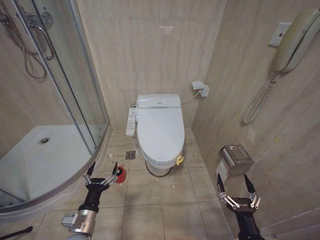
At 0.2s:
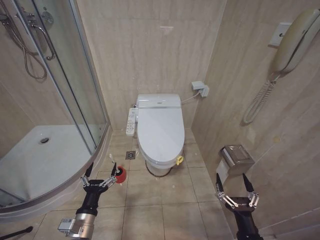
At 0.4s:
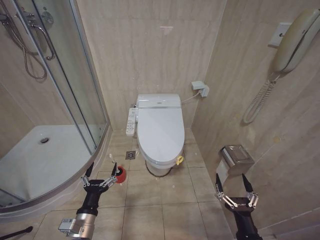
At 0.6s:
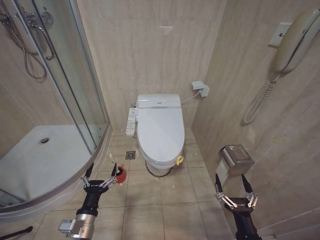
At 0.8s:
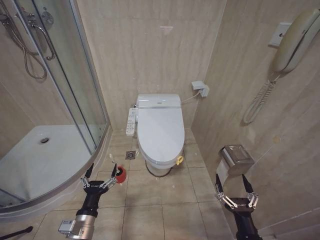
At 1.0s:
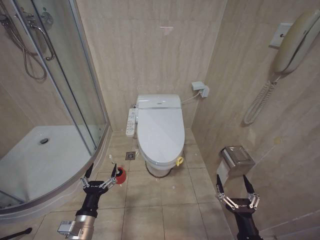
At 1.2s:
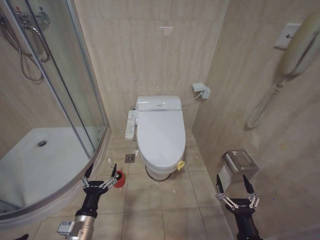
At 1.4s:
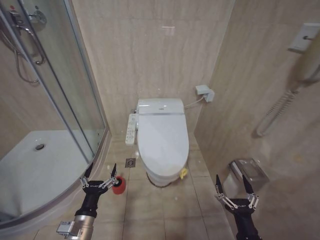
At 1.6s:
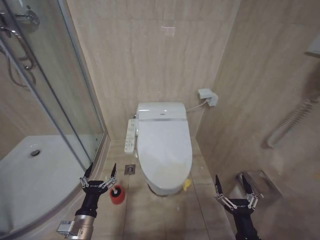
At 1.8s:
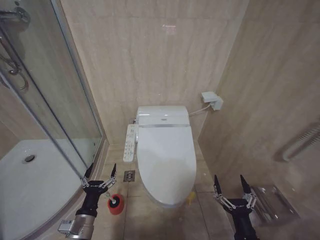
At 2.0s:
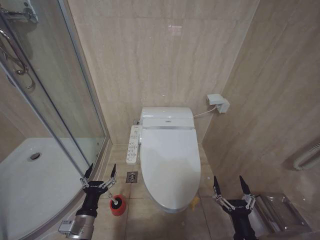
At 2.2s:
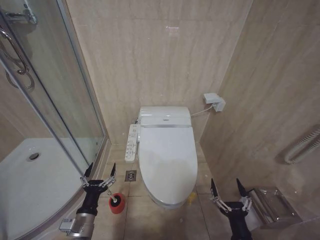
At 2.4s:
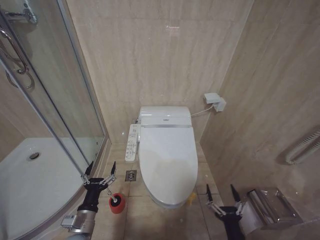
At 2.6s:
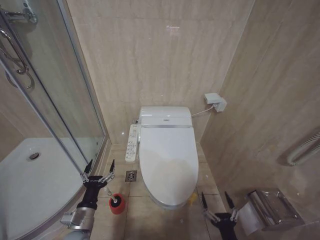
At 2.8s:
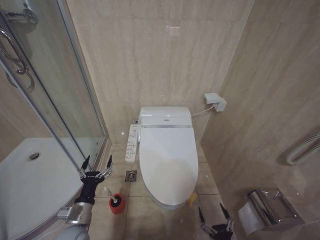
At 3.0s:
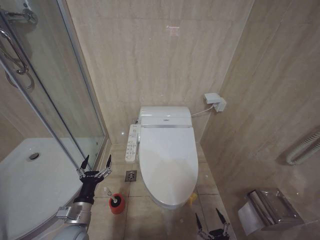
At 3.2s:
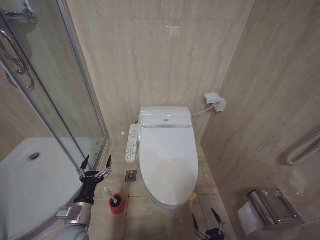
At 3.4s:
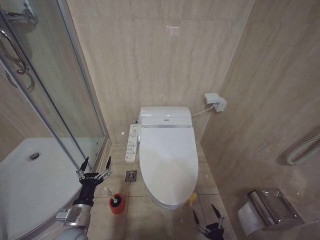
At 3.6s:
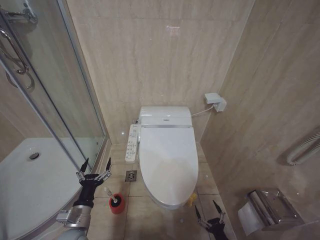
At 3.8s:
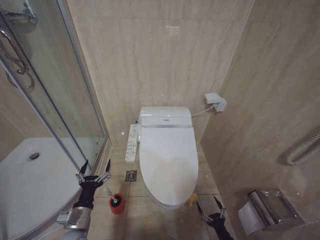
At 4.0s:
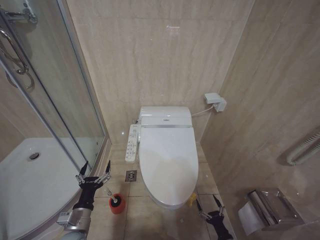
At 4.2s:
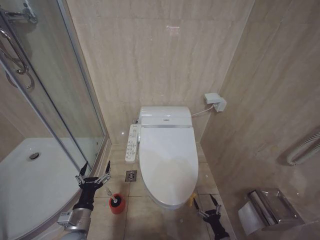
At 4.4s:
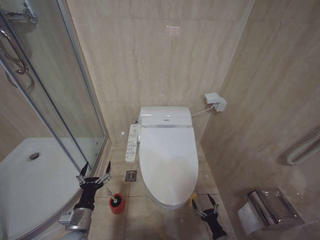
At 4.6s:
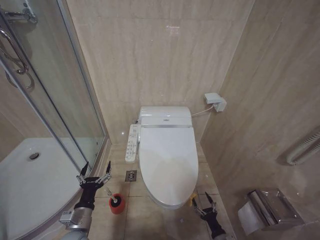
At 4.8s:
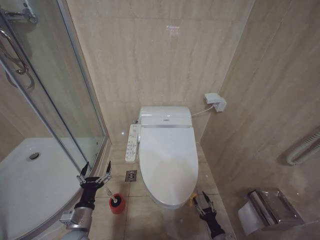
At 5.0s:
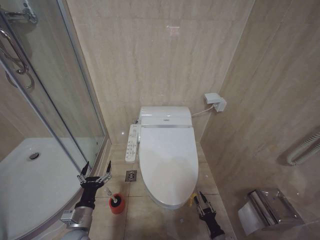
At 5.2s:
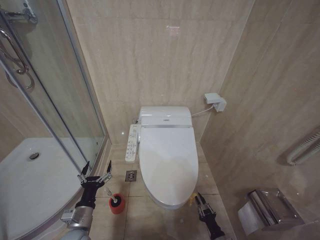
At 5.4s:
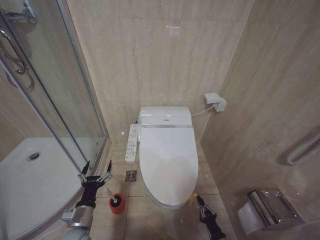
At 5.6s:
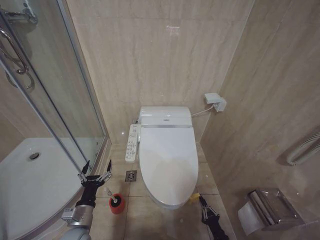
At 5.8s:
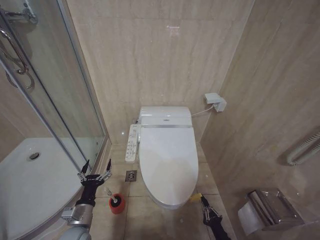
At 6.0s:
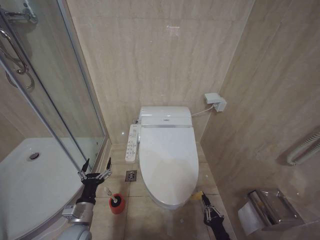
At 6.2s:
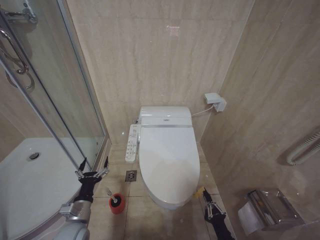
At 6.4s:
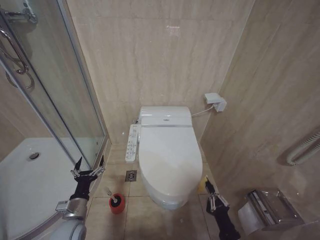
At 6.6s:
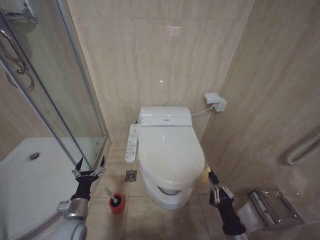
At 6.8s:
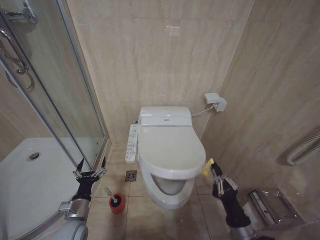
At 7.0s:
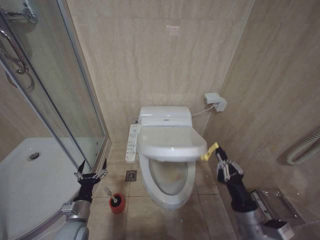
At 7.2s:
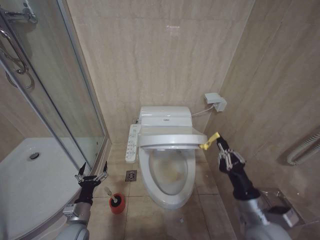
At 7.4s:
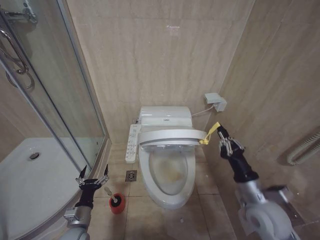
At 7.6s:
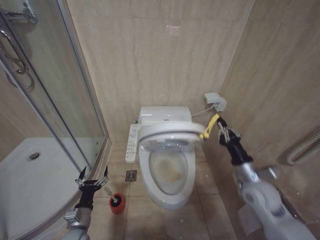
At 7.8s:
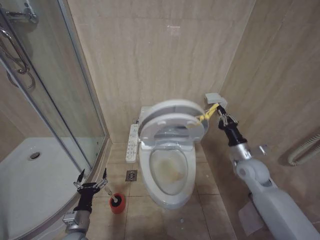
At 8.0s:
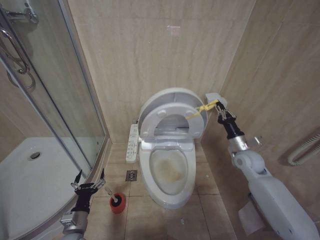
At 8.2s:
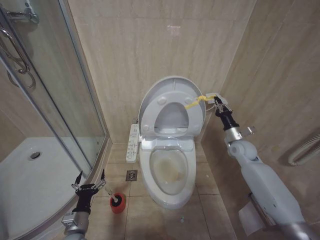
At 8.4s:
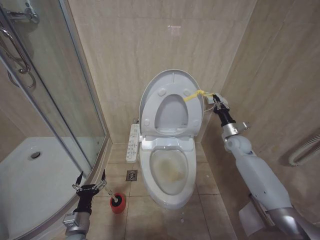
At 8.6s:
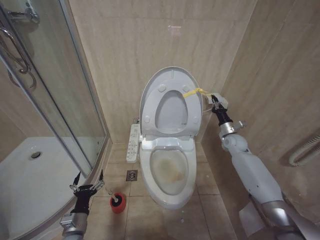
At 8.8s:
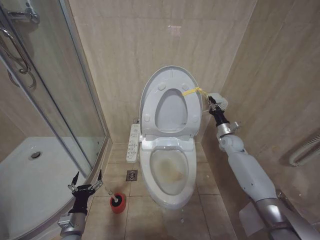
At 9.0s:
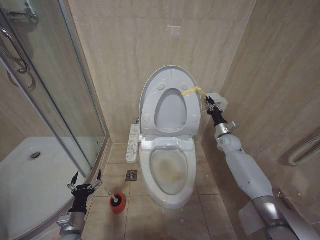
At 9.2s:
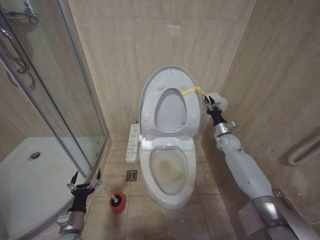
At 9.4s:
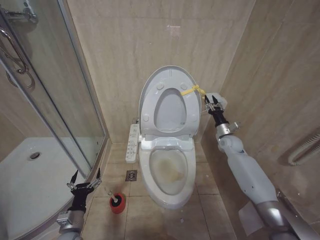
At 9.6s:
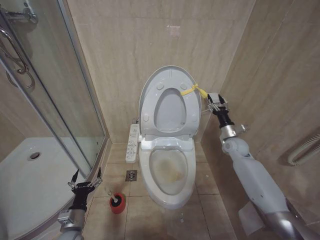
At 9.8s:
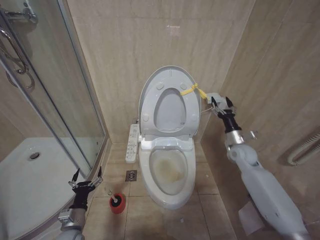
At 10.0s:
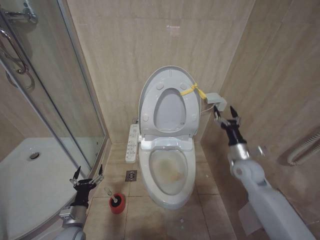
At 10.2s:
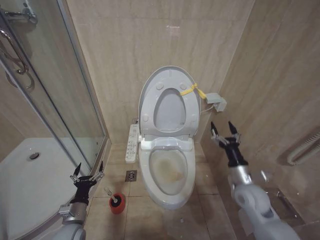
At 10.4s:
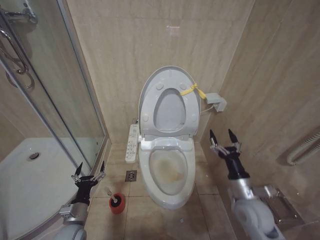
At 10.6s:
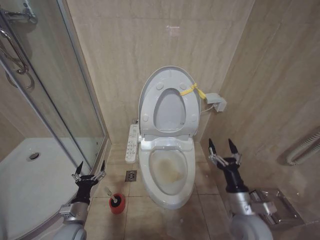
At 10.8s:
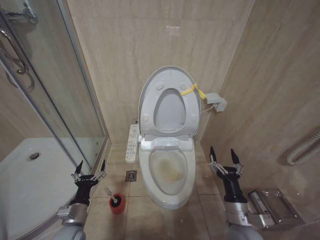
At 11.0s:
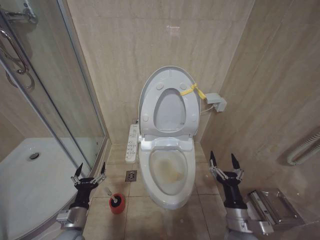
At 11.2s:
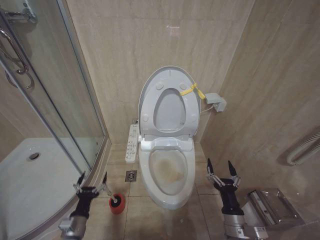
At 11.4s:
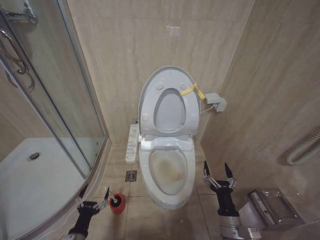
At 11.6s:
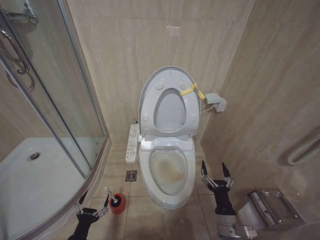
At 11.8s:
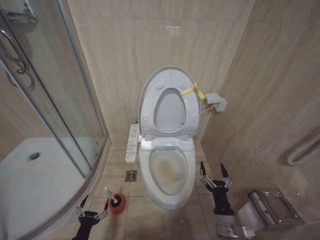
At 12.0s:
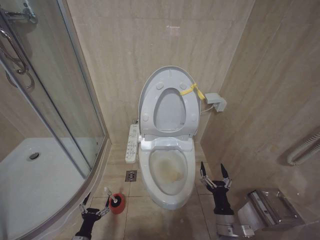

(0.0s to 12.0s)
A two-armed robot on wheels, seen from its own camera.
Task of the whole recording: Open the toilet lid, clean the toilet bowl with a toilet brush, close the toilet lid, and flush.
1.6s - 3.0s: The right gripper travels downward by some 15 cm.
3.0s - 4.4s: The right gripper heads forward and downward, covering some 15 cm.
4.4s - 6.0s: The right gripper heads upward, covering some 5 cm, and closes up.
6.0s - 7.6s: The right gripper goes roughly 30 cm upward and forward.
7.6s - 9.0s: The right gripper shifts approximately 25 cm forward.
9.0s - 10.4s: The right gripper is displaced backward by some 25 cm, and opens up.
10.4s - 12.0s: The left gripper travels downward and backward by roughly 15 cm. The right gripper travels downward, backward and to the left by about 15 cm.

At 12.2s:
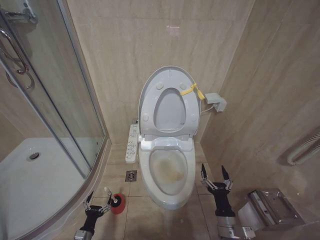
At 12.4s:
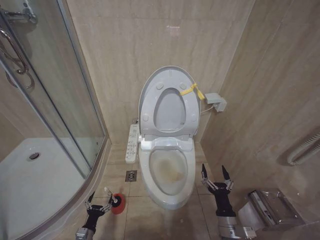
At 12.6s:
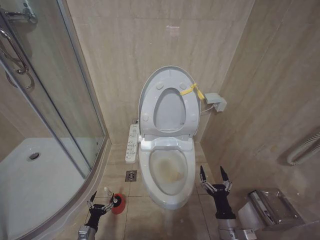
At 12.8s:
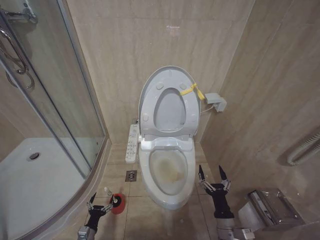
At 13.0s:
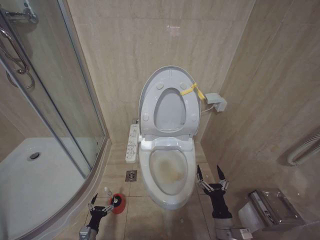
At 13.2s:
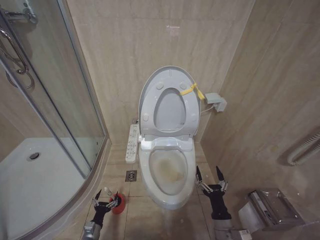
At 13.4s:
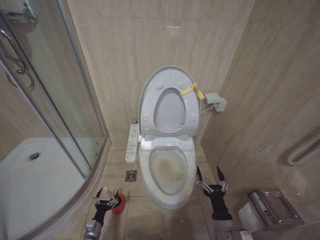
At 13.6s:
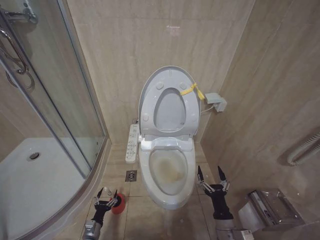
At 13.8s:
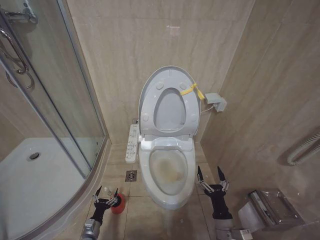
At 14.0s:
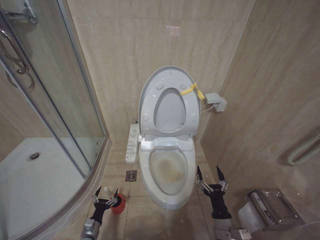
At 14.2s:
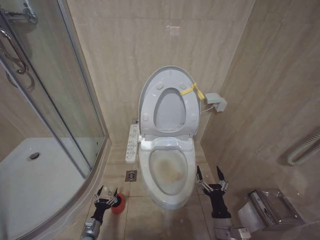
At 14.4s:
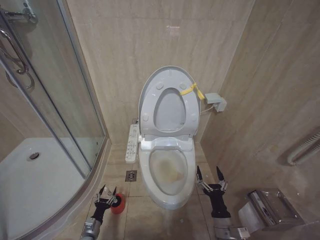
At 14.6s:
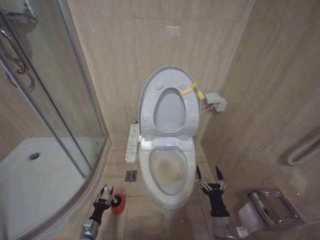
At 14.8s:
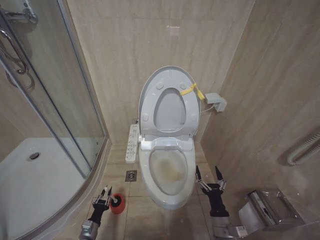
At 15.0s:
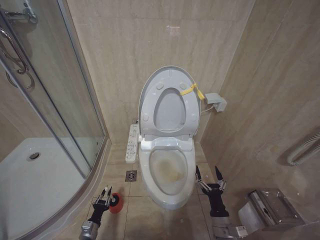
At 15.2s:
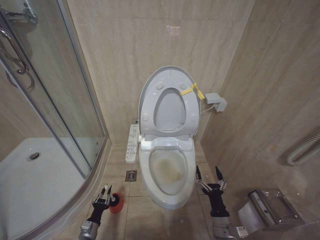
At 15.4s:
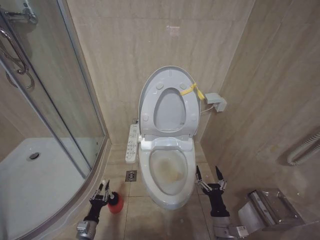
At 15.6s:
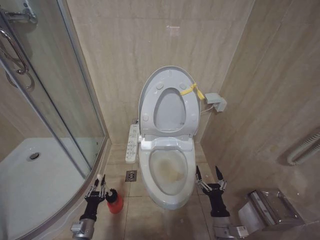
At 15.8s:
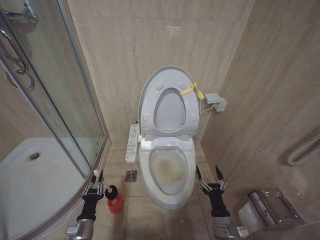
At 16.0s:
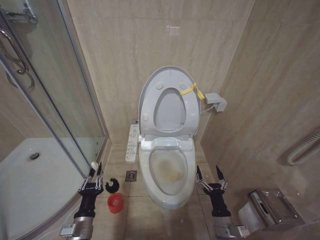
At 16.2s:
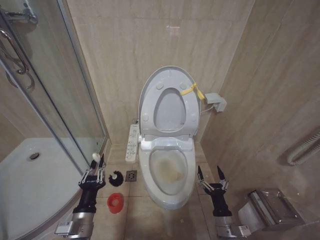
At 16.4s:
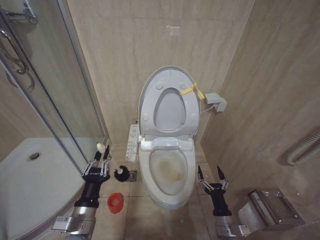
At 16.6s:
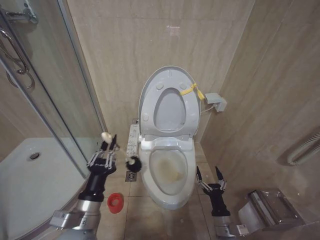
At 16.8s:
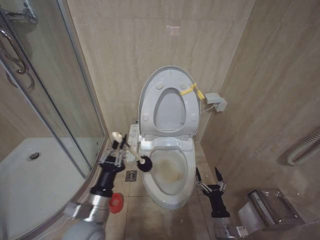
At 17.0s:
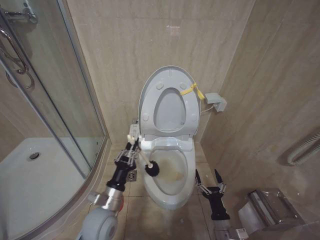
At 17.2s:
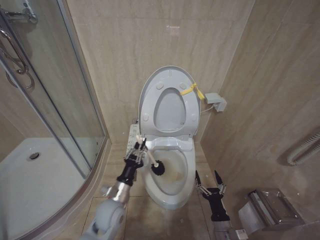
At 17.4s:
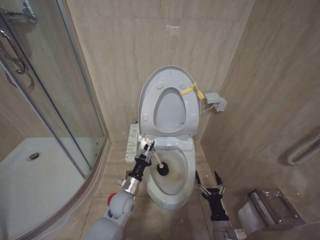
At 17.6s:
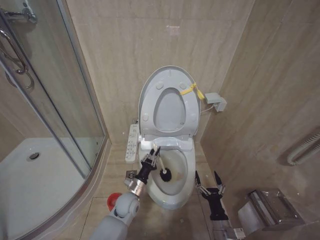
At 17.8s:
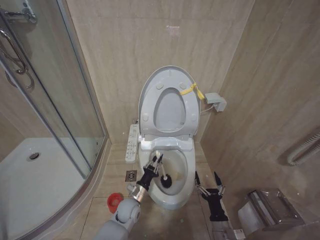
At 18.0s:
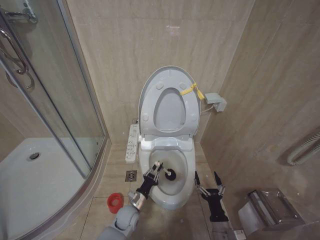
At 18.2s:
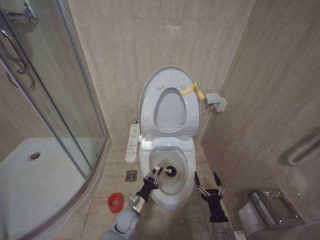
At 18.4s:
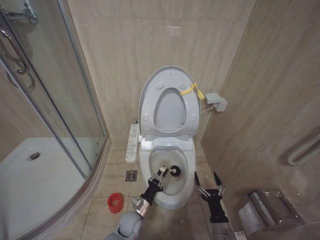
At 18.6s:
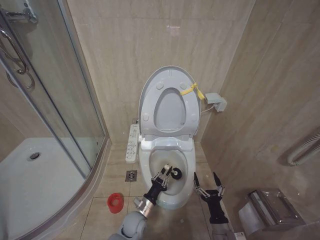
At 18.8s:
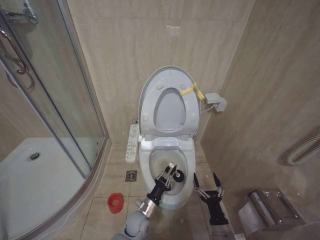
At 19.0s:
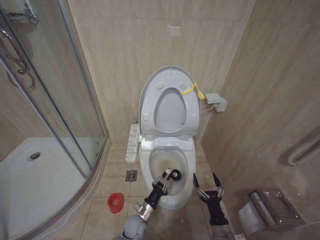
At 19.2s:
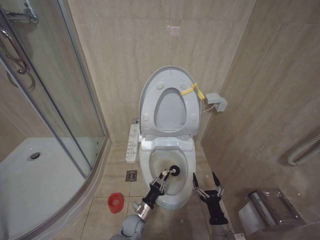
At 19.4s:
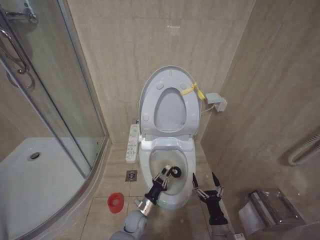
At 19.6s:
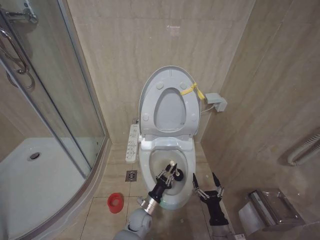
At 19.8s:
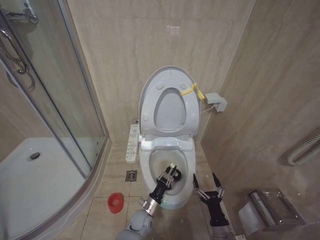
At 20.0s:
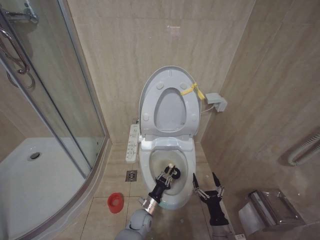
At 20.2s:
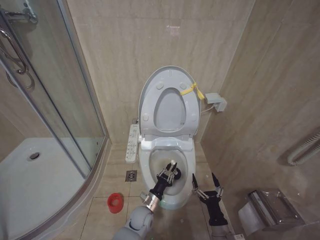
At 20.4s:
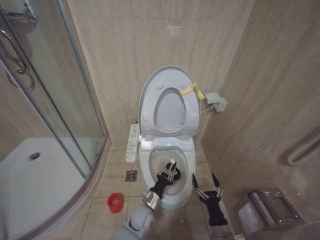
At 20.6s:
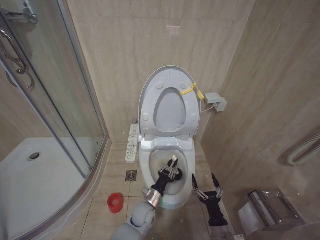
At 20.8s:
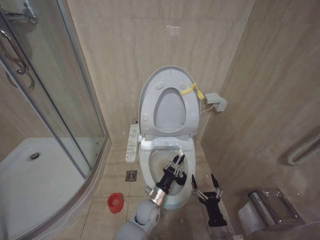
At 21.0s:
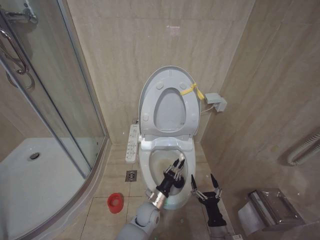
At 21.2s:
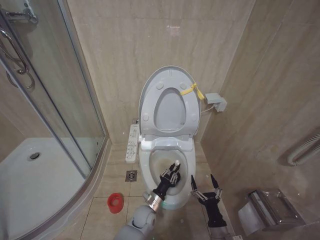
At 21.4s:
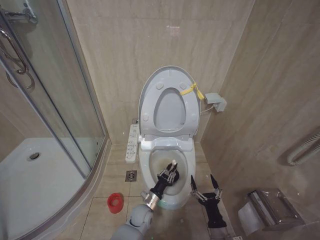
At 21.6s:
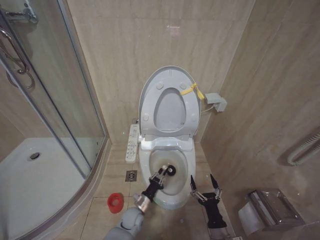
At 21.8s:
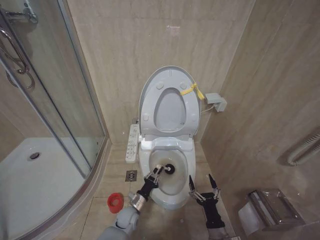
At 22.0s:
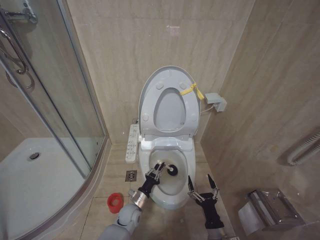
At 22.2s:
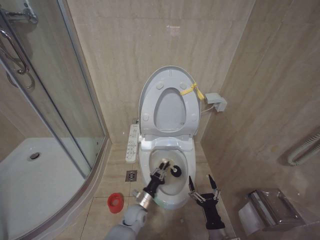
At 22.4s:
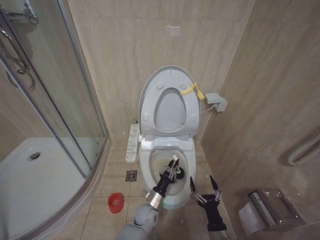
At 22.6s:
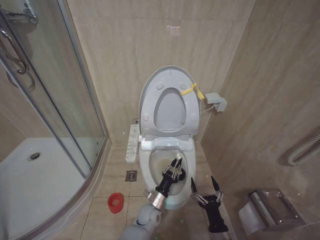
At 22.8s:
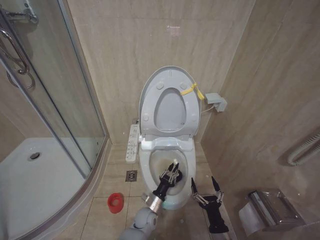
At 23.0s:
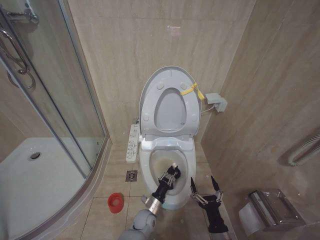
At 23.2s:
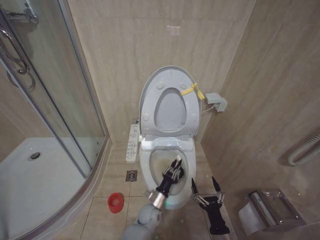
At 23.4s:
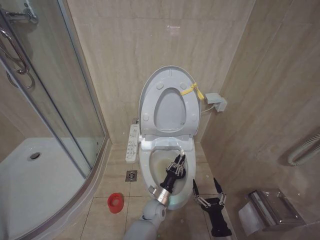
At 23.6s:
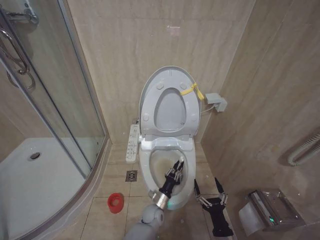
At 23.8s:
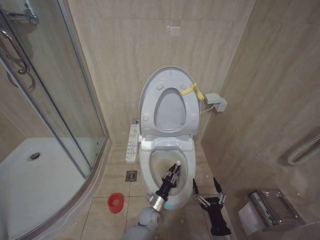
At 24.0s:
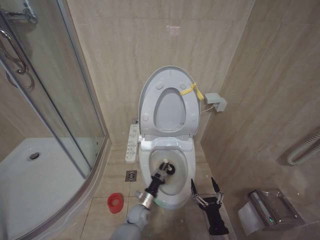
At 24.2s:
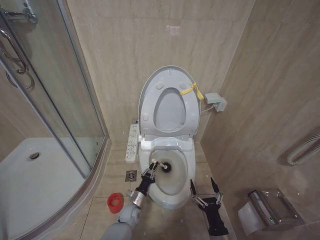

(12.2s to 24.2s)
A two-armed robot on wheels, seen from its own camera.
Task of the whole recording: Open the toilet lid, clean the toilet bowl with a toilet brush, close the toilet lid, and flush.
12.2s - 13.8s: The left gripper heads forward, covering roughly 5 cm.
13.8s - 15.2s: The left gripper closes its fingers.
15.2s - 16.6s: The left gripper goes some 35 cm upward.
16.6s - 18.2s: The left gripper goes about 30 cm downward and forward.
18.2s - 19.8s: The left gripper moves to the right, some 5 cm.
19.8s - 21.2s: The left gripper reaches roughly 5 cm upward, then returns.
21.2s - 22.6s: The left gripper reaches roughly 10 cm to the left, then returns.
22.6s - 24.2s: The left gripper travels to the left and downward by approximately 10 cm.
